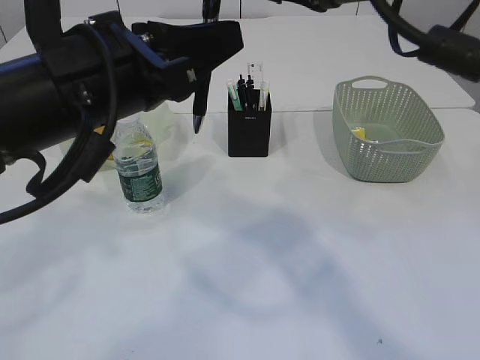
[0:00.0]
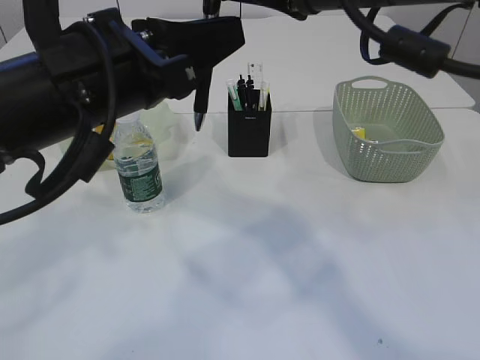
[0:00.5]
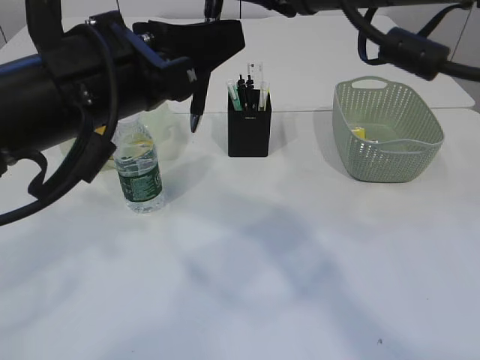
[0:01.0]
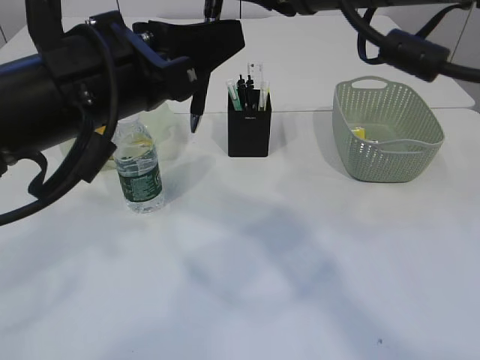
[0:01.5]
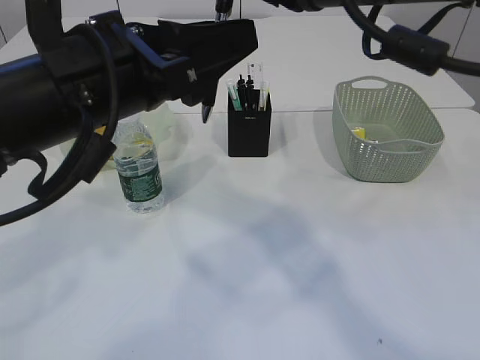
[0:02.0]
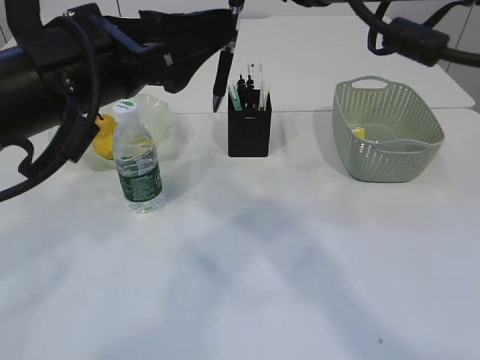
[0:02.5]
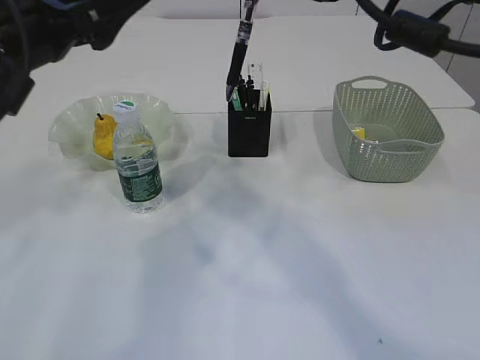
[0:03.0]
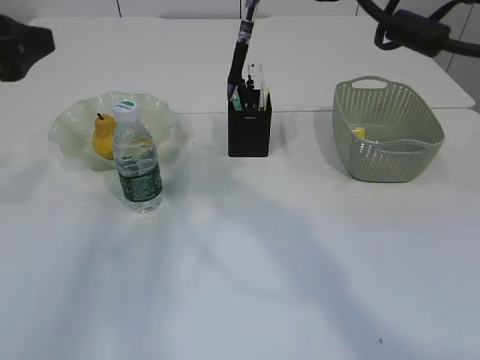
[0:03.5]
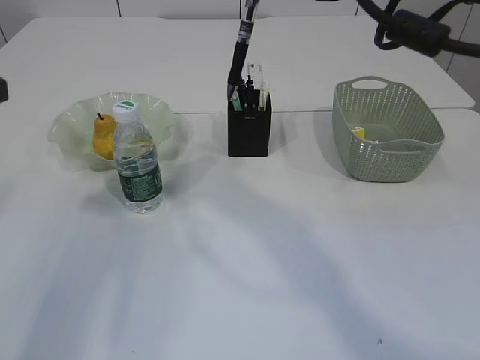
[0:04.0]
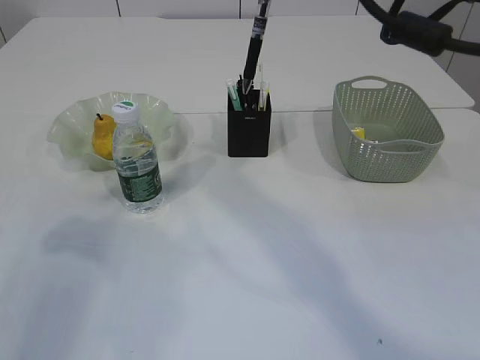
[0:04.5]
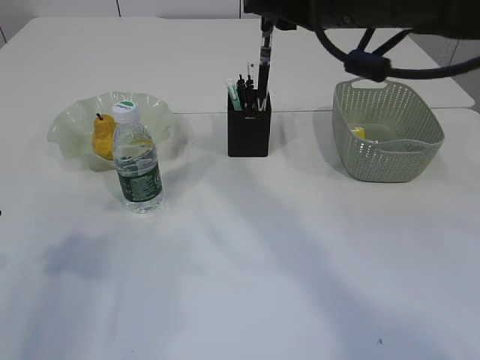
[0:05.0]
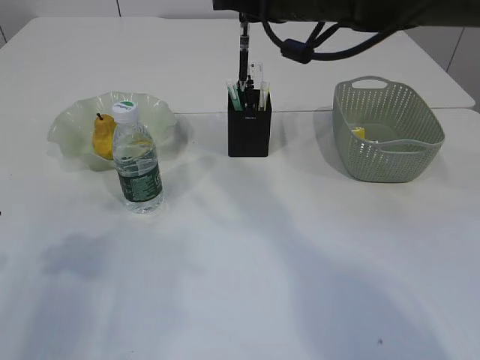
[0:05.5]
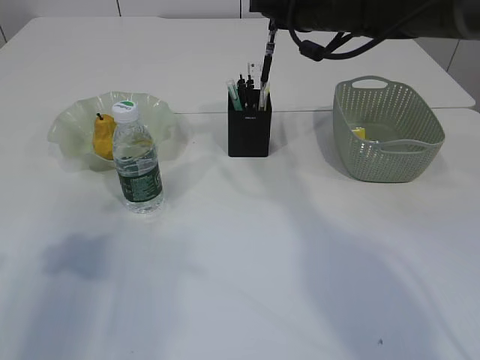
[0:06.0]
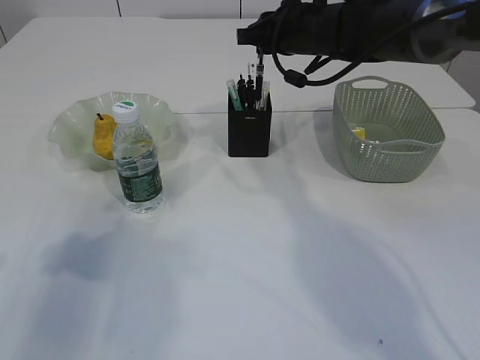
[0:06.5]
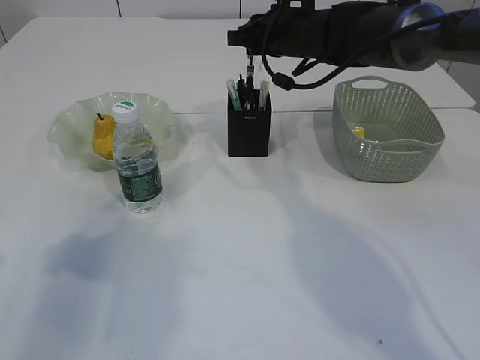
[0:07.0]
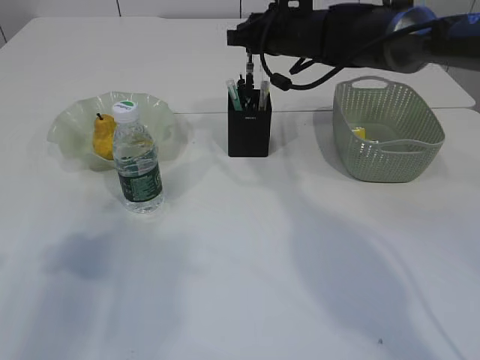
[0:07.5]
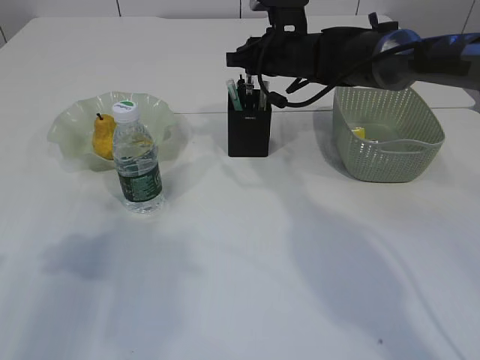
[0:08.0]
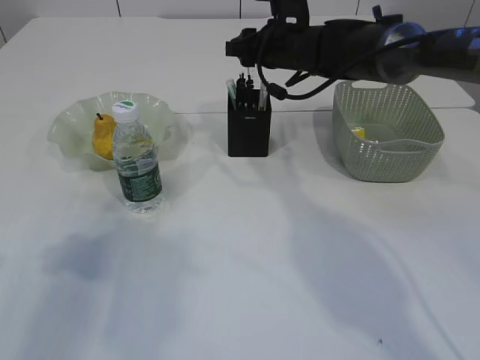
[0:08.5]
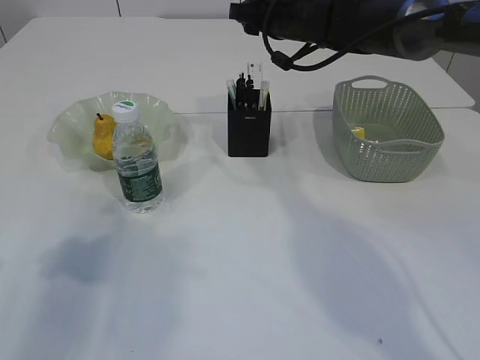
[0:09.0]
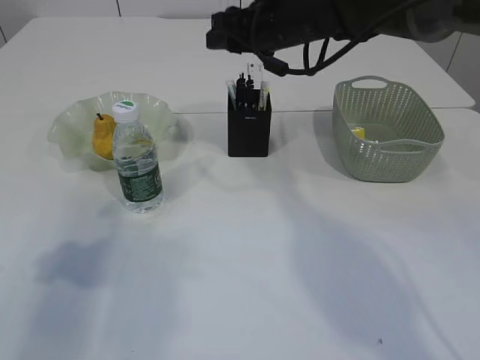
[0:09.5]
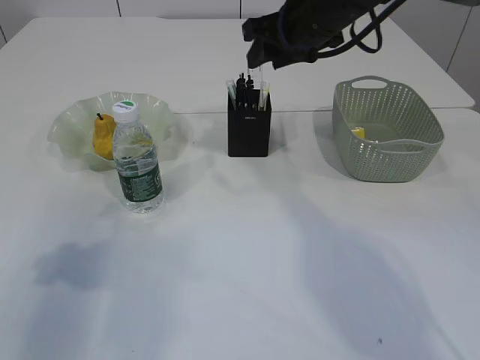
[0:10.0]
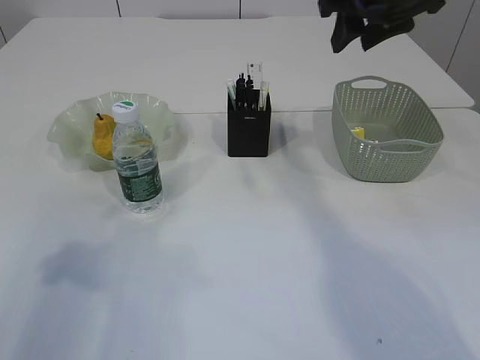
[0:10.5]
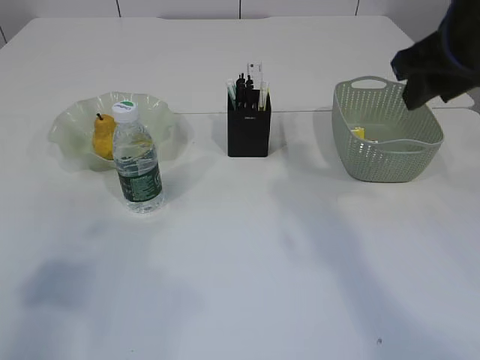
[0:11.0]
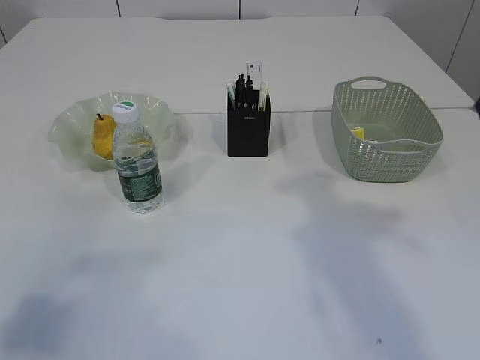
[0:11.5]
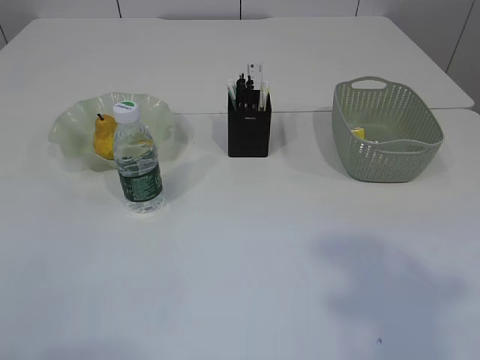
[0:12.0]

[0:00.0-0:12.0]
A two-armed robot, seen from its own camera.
Step, 0:00.0 to 0:08.5: Place the pen into the pen holder.
0:00.0 to 0:02.0: The right gripper closes. The left gripper opens its fingers.
0:02.0 to 0:04.0: The left gripper travels to the left by some 15 cm.
0:04.0 to 0:06.0: The right gripper travels forward and downward by some 20 cm, while the left gripper moves about 5 cm.
0:06.0 to 0:08.0: The right gripper heads downward and forward, covering roughly 10 cm.
0:08.0 to 0:10.0: The right gripper is displaced upward and backward by approximately 10 cm, and opens.
0:10.0 to 0:12.0: The right gripper shifts approximately 40 cm backward and to the right; the left gripper goes roughly 20 cm backward.
